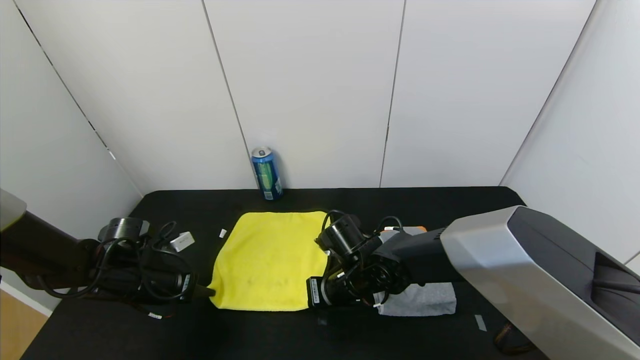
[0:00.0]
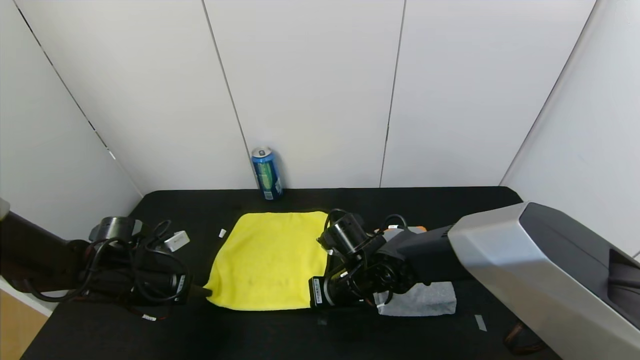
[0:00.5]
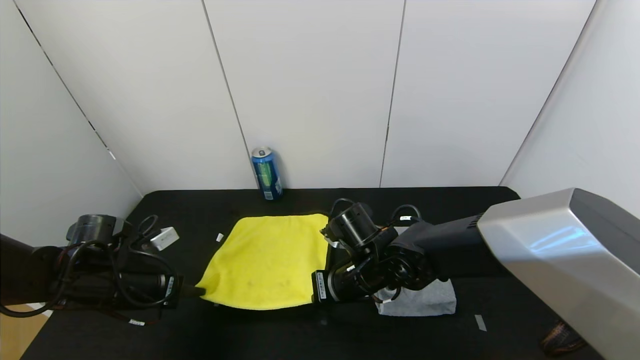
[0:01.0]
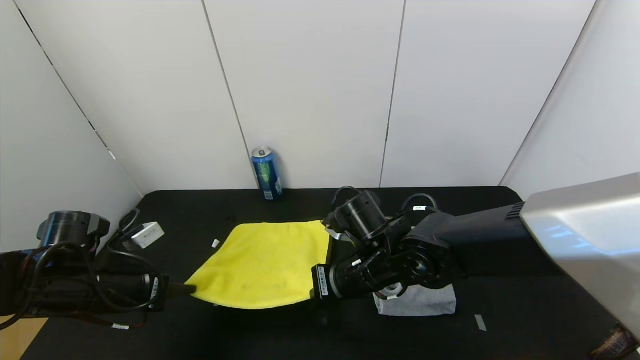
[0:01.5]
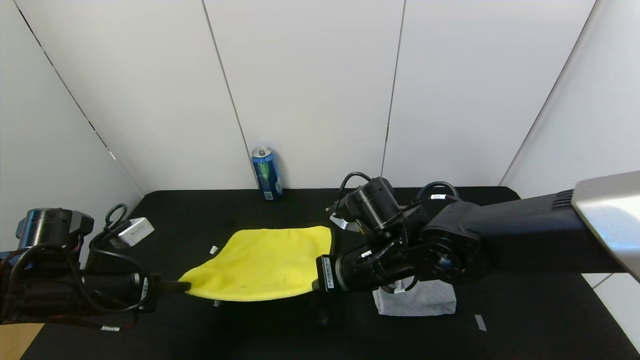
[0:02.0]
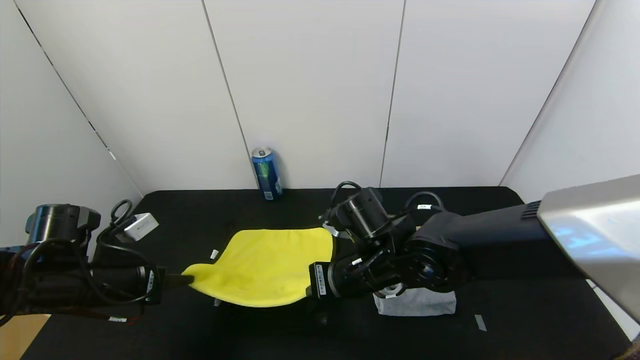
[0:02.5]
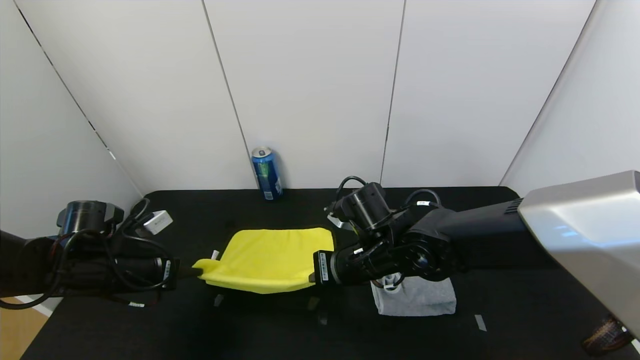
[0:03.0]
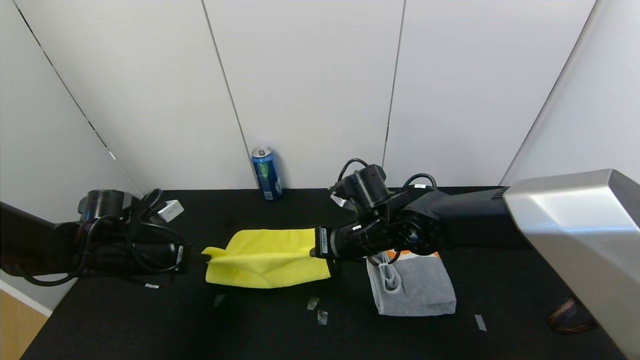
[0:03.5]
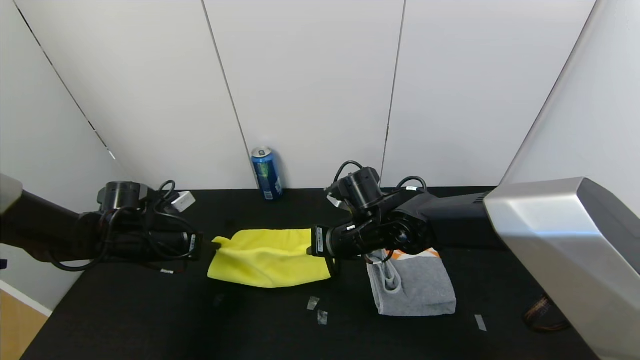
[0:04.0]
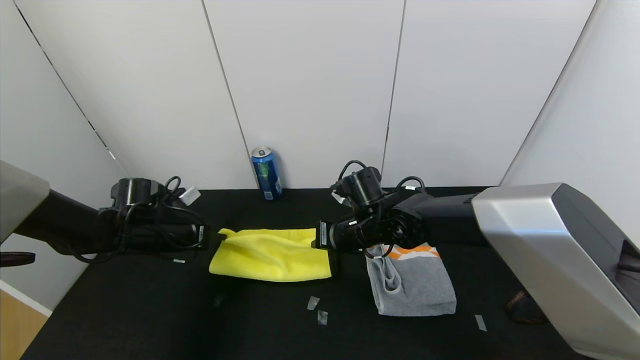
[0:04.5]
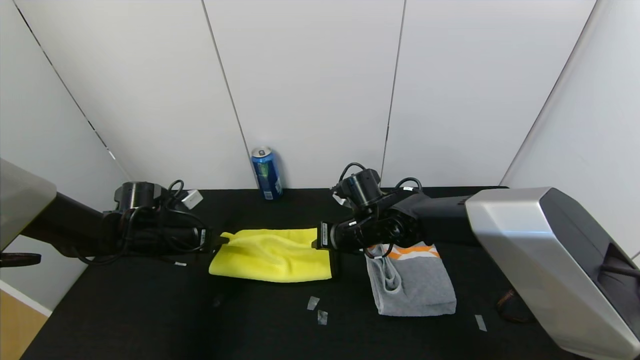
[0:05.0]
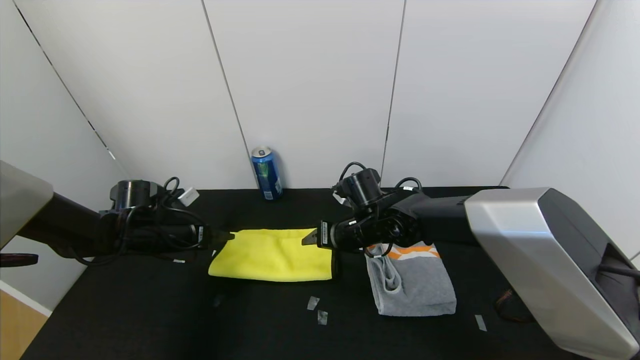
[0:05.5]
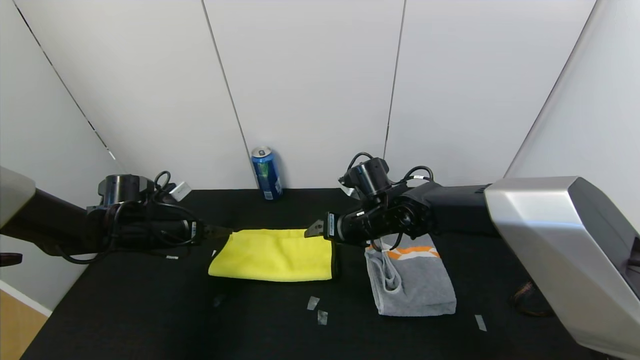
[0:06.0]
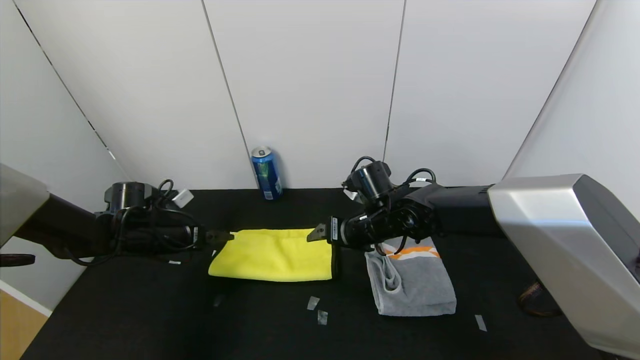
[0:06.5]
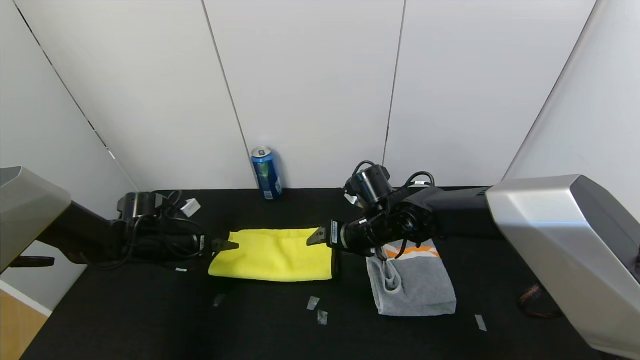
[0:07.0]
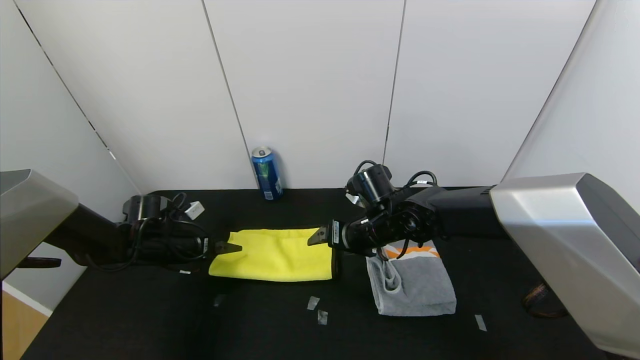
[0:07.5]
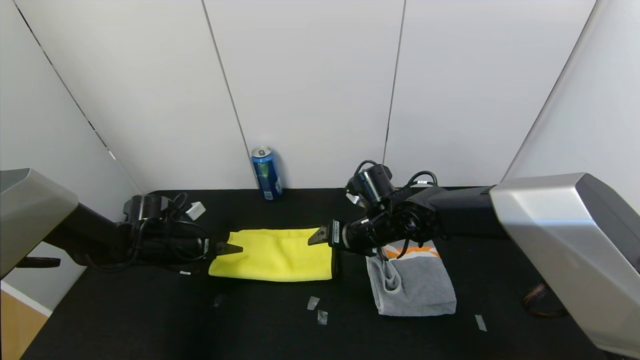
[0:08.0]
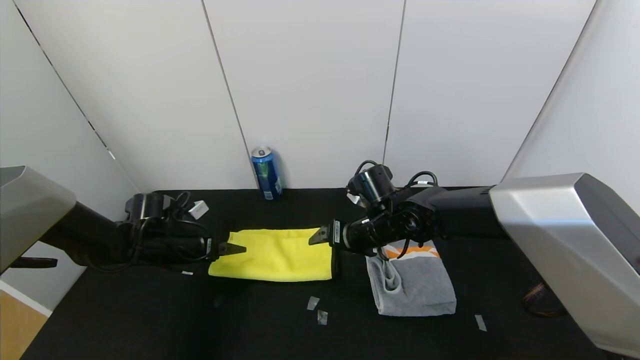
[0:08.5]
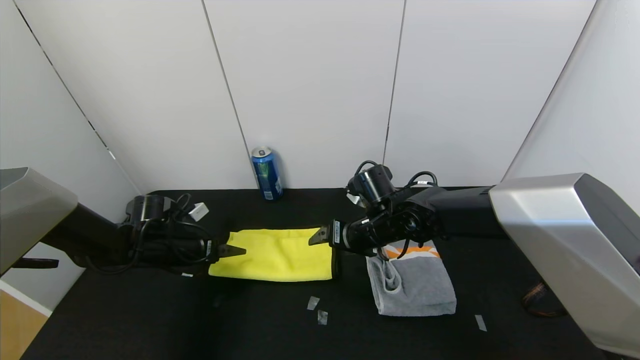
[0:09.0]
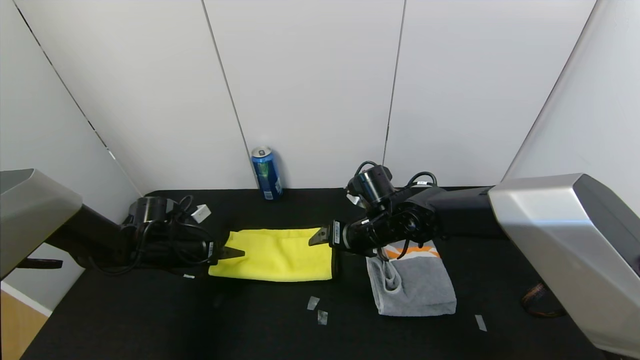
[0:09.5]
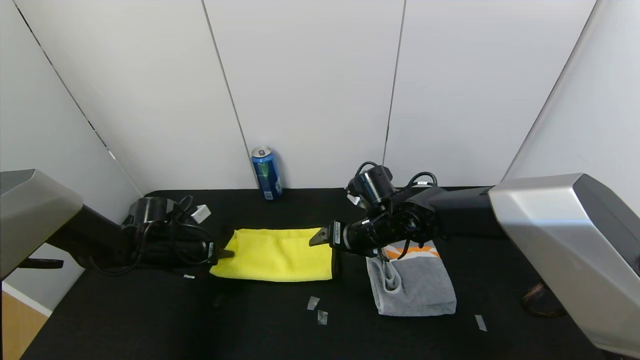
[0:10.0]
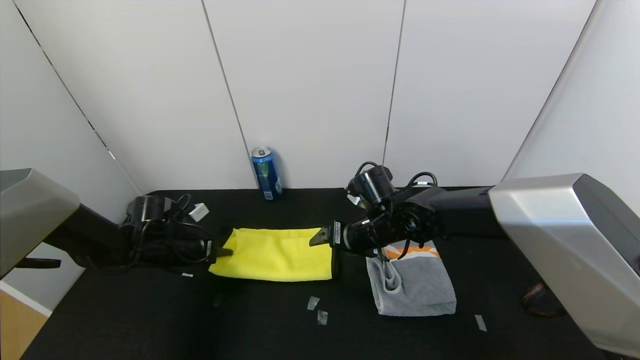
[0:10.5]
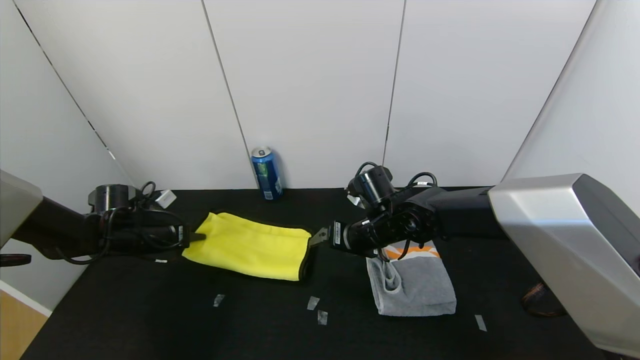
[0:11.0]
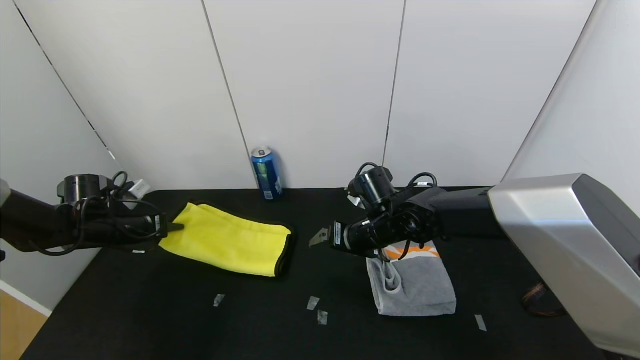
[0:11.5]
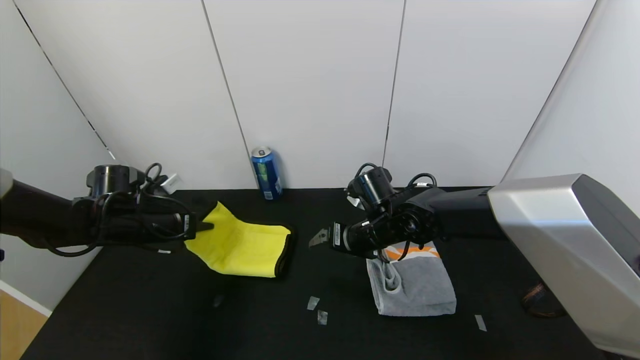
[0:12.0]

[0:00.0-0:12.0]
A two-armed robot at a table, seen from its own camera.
Task of the whole recording: Use the gripper to fold the yellow towel and grey towel in half twice,then put the yellow towel on the grey towel.
Step, 0:00.0 to 0:05.5: Fold the yellow towel upwards with the left gripper.
Step, 0:00.0 to 0:05.5: Fold the yellow towel upwards with the right gripper.
0:00.0 to 0:02.0: The left gripper goes roughly 10 cm backward and upward. The right gripper moves upward, some 10 cm.
0:02.0 to 0:04.0: The left gripper travels forward by approximately 10 cm. The right gripper shifts roughly 10 cm forward.
0:04.0 to 0:06.0: The left gripper opens up, while the right gripper opens up.
0:06.0 to 0:08.0: The left gripper ends up about 5 cm from where it was.
0:08.0 to 0:10.0: The left gripper closes its fingers.
0:10.0 to 0:12.0: The left gripper moves upward, some 10 cm, and travels to the left and back again, about 10 cm each way.

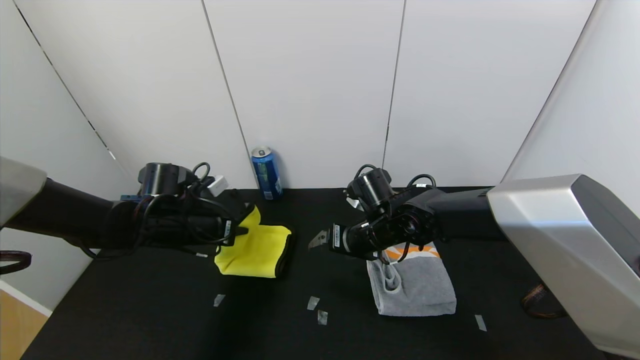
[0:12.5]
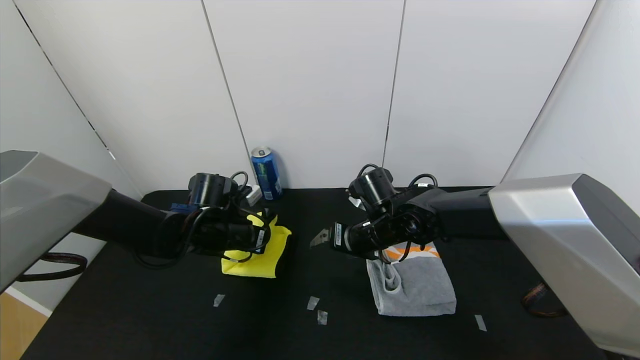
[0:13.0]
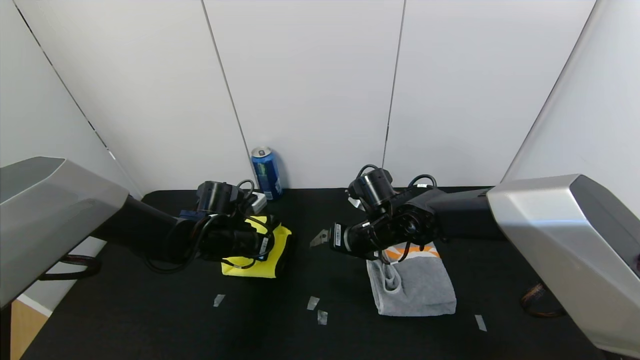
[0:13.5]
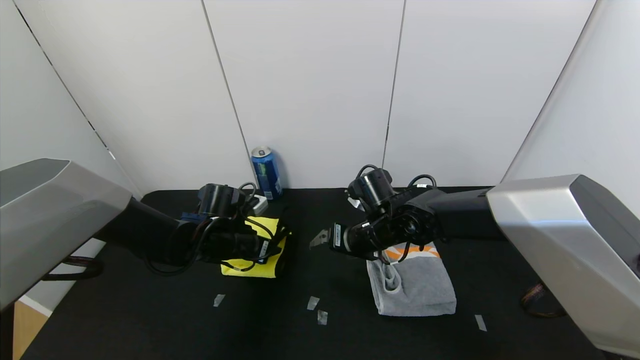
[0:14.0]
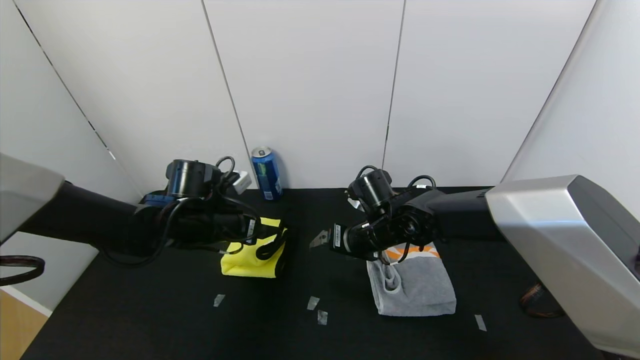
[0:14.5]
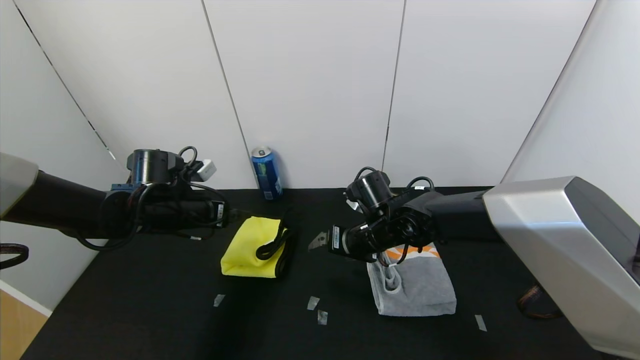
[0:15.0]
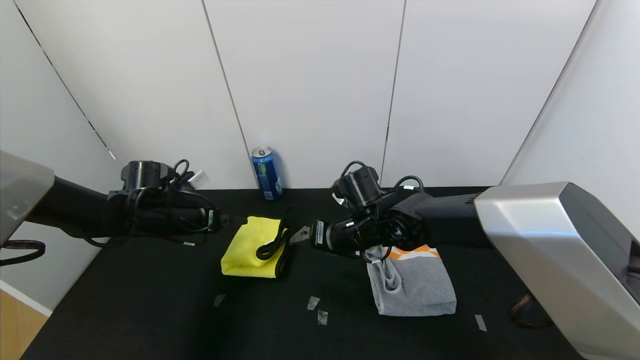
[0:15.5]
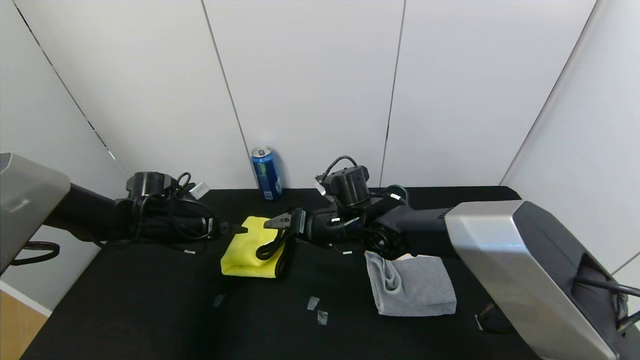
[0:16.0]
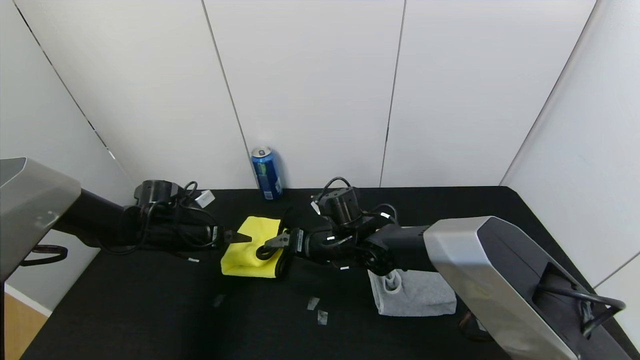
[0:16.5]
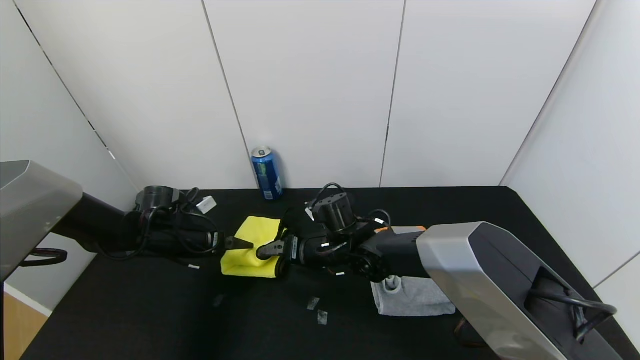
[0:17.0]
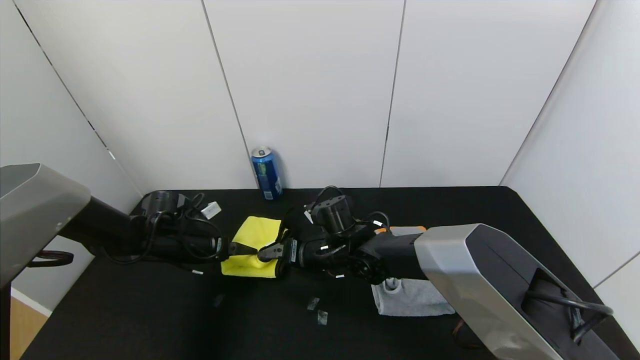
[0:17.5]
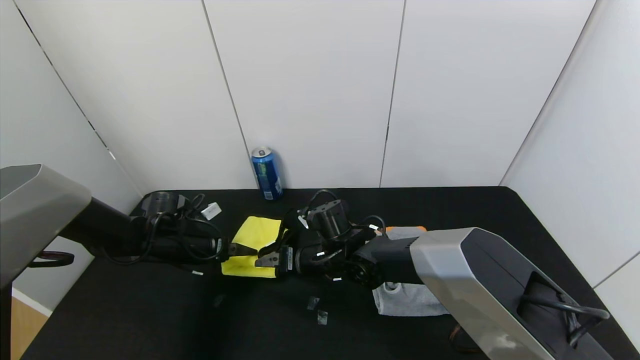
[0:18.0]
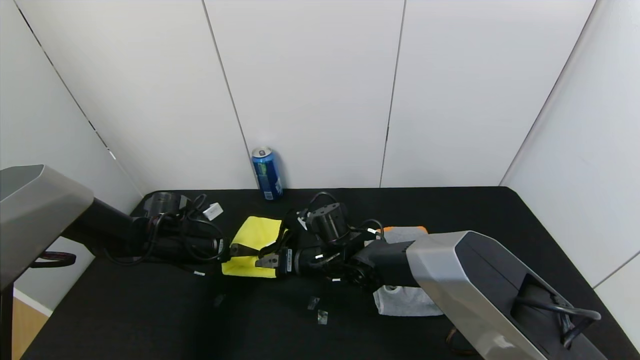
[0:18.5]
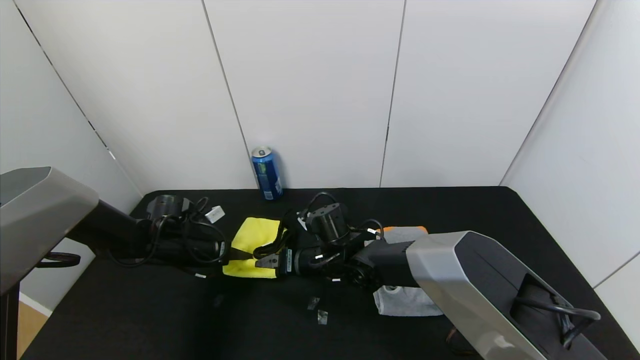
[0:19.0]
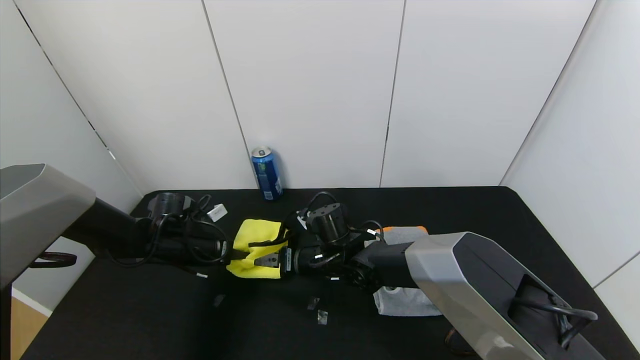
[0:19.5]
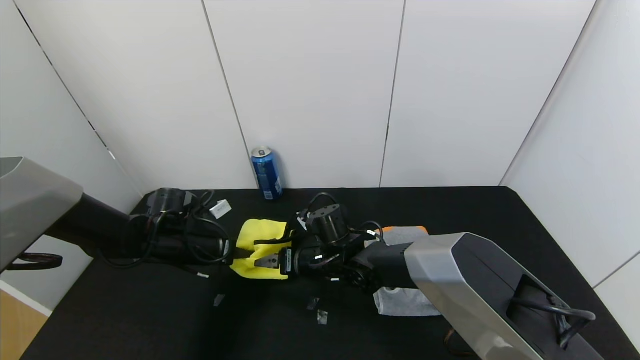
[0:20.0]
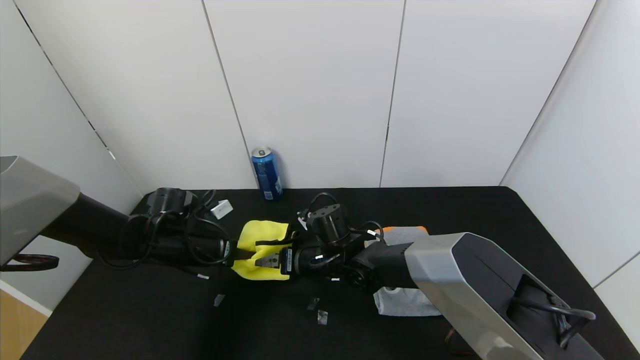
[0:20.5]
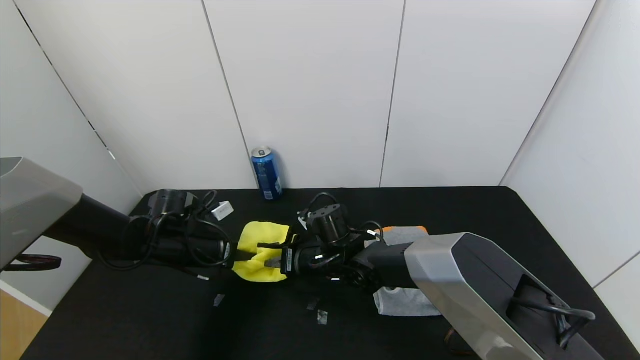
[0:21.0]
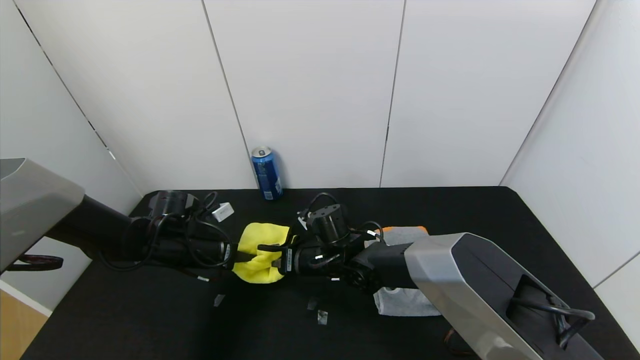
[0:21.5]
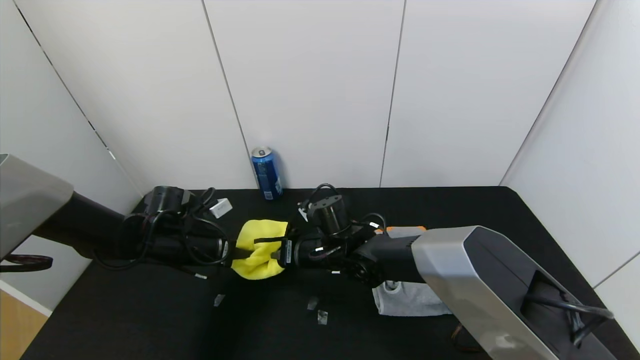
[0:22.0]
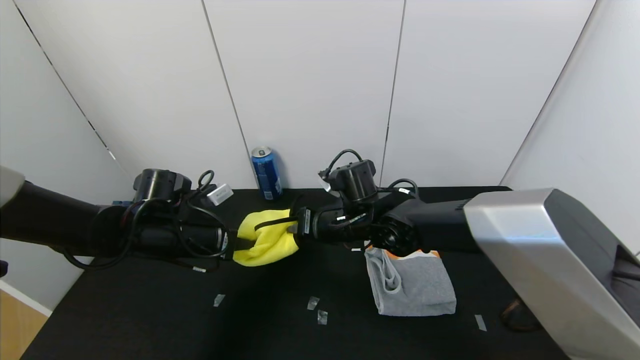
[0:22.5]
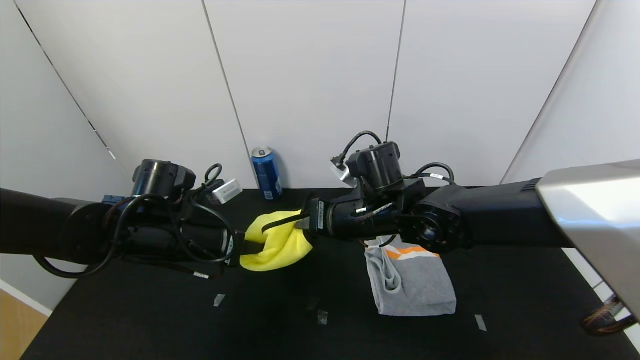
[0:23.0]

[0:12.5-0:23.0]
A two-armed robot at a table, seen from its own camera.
Task of the whole recording: Use the gripper to fold the yellow towel and grey towel in half twice,then put the yellow towel on the grey towel.
0:12.5 to 0:14.5: The left gripper opens.
0:14.5 to 0:16.5: The right gripper goes approximately 5 cm to the left; the left gripper moves to the left and downward, roughly 10 cm.
0:16.5 to 0:19.0: The left gripper closes up.
0:19.0 to 0:21.0: The left gripper closes its fingers, while the right gripper closes up.
0:21.0 to 0:23.0: The right gripper shifts some 15 cm upward and to the right, and closes up, while the left gripper travels upward, backward and to the right by some 10 cm.
